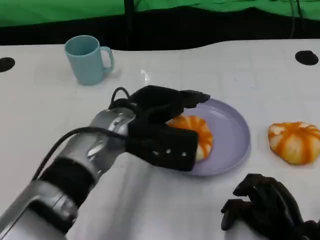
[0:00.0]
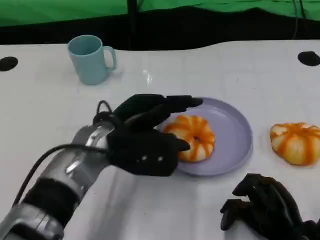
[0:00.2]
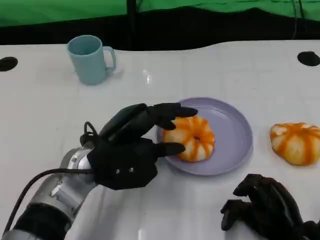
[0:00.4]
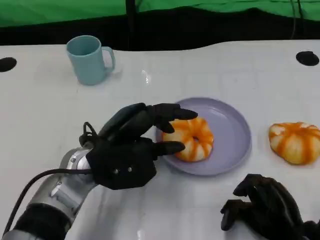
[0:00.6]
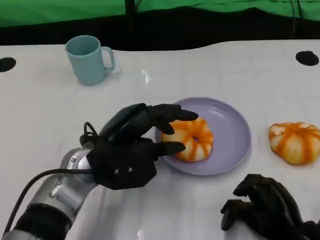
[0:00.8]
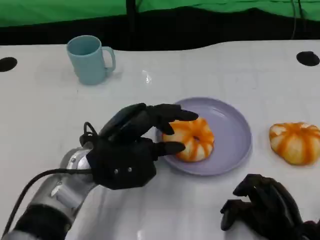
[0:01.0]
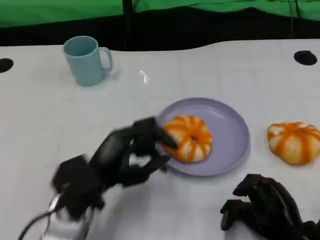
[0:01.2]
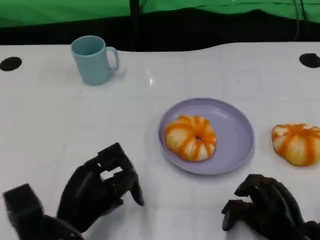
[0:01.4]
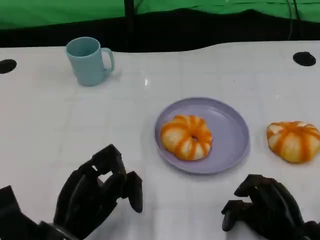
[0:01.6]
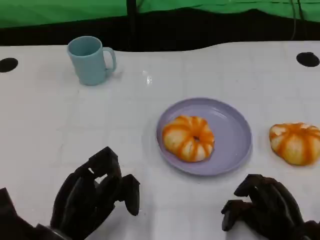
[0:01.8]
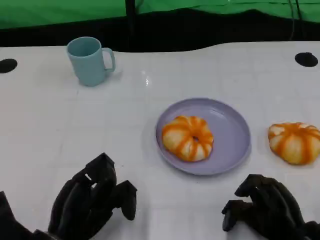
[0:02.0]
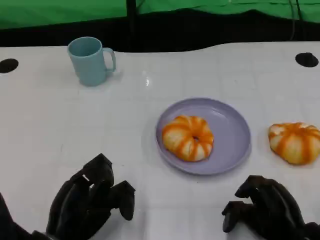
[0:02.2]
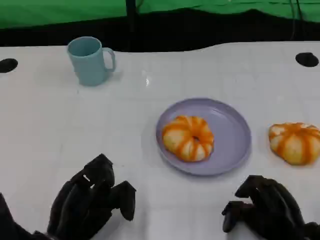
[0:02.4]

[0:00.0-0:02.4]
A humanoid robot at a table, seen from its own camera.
Task of the whole recording: Grasp the bread from the table and place it into the plate.
0:00.0 to 0:01.2: The left hand moves backward, downward and to the left, some 15 cm.
0:01.2 to 0:02.4: The left hand shifts by roughly 5 cm.

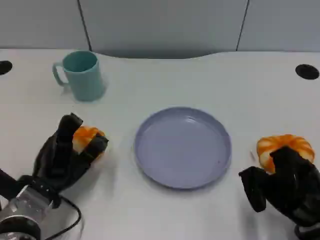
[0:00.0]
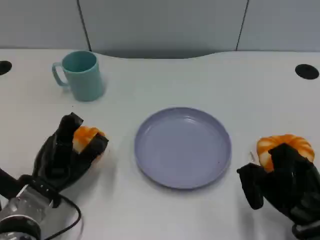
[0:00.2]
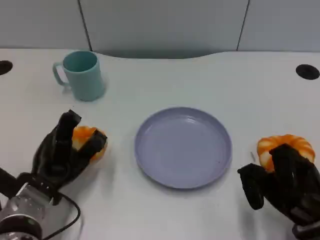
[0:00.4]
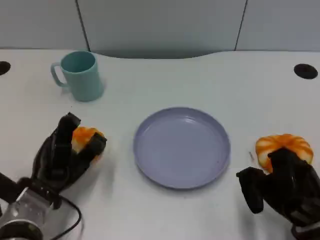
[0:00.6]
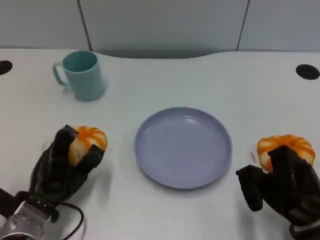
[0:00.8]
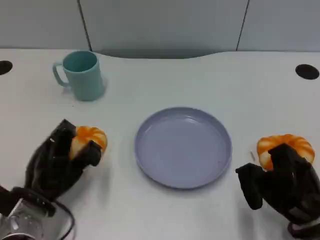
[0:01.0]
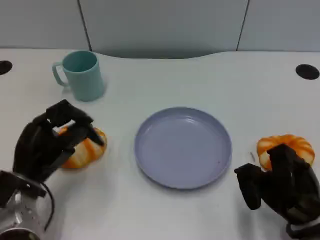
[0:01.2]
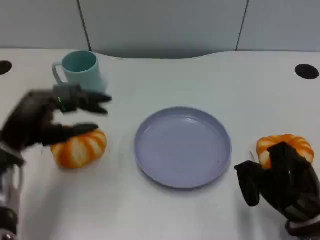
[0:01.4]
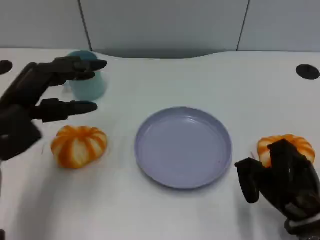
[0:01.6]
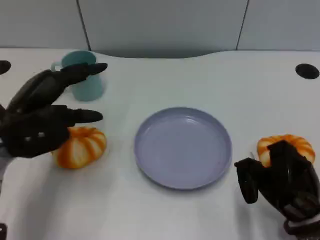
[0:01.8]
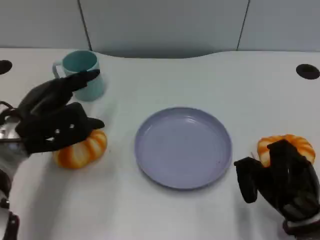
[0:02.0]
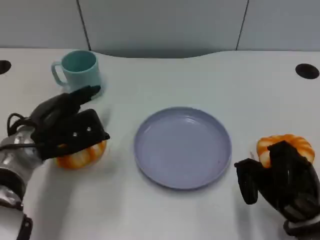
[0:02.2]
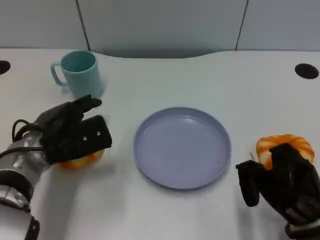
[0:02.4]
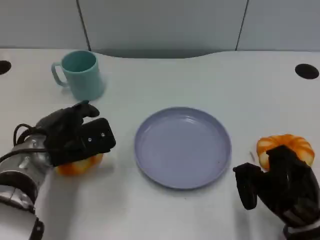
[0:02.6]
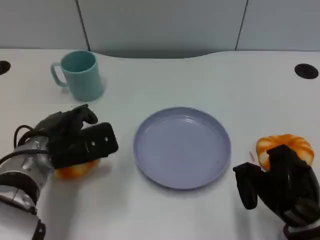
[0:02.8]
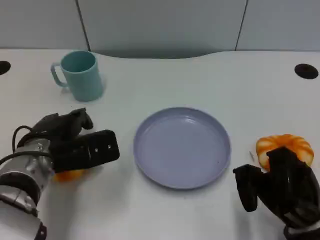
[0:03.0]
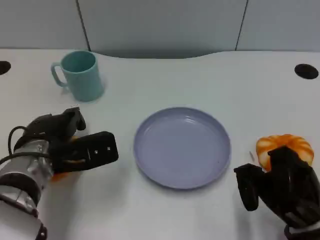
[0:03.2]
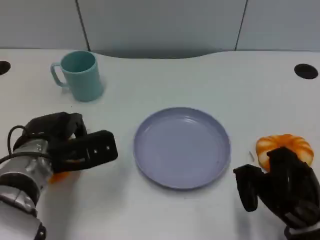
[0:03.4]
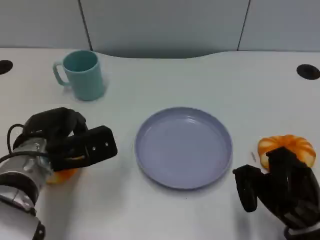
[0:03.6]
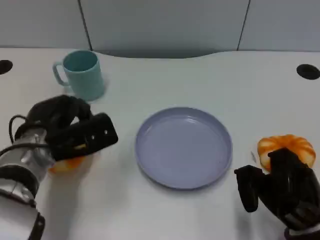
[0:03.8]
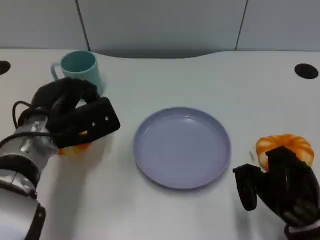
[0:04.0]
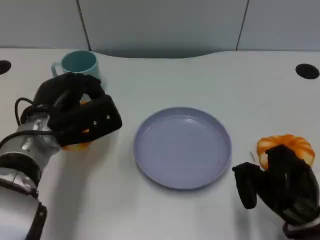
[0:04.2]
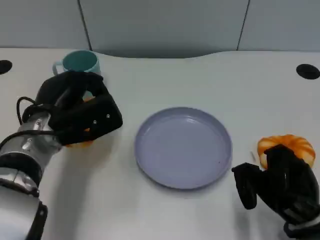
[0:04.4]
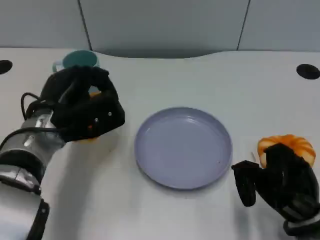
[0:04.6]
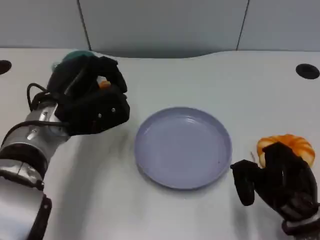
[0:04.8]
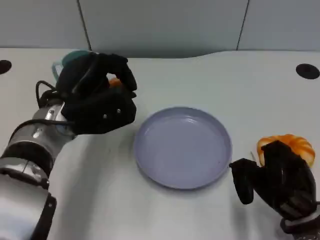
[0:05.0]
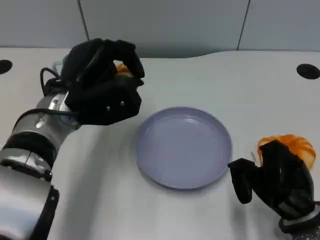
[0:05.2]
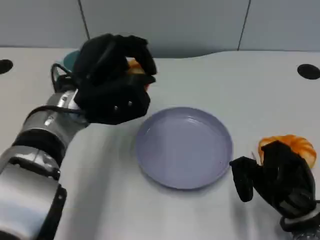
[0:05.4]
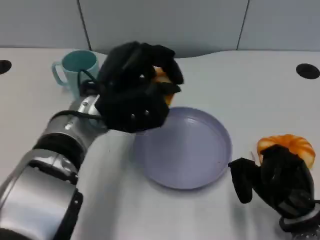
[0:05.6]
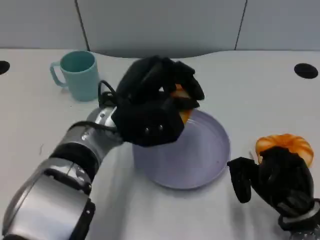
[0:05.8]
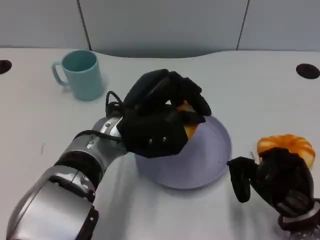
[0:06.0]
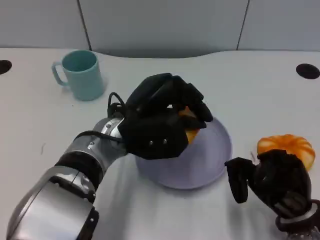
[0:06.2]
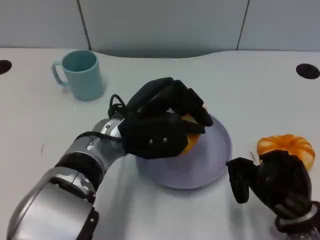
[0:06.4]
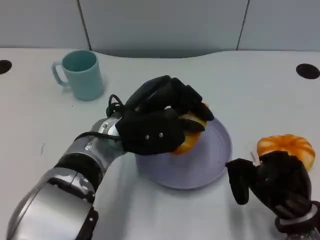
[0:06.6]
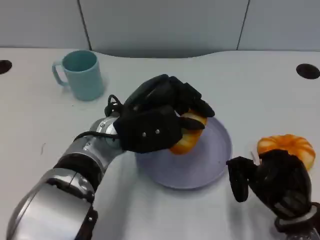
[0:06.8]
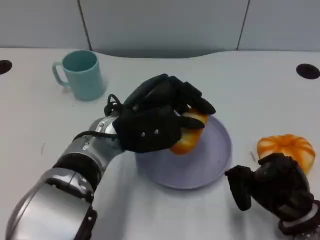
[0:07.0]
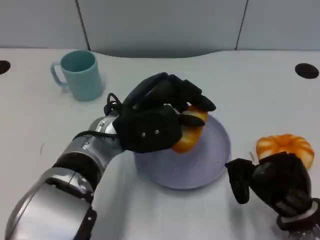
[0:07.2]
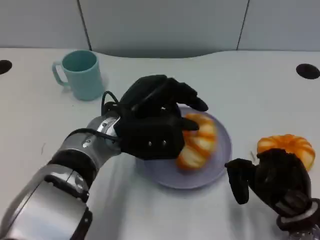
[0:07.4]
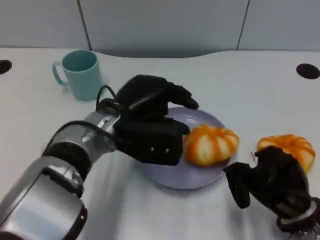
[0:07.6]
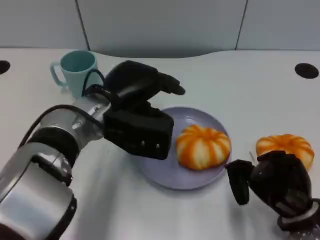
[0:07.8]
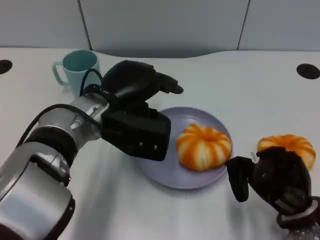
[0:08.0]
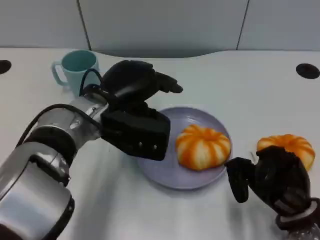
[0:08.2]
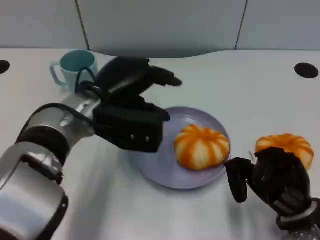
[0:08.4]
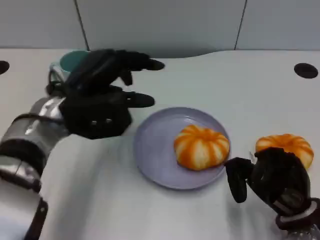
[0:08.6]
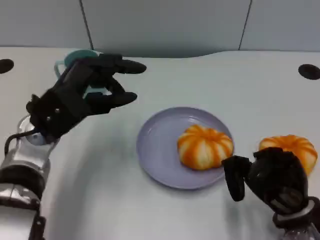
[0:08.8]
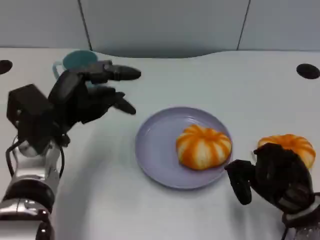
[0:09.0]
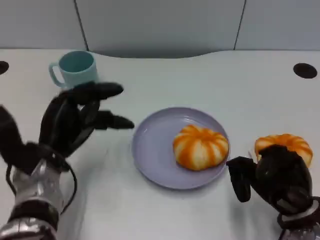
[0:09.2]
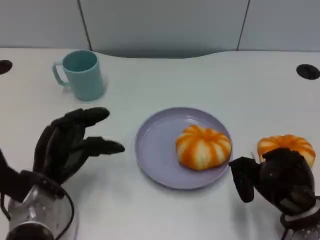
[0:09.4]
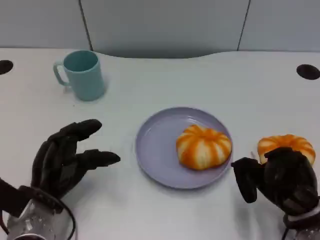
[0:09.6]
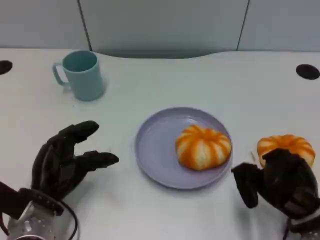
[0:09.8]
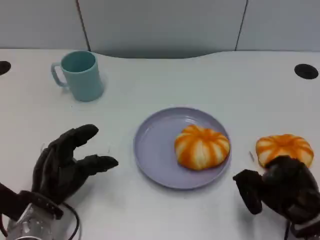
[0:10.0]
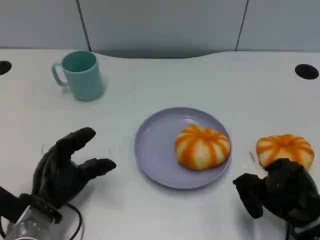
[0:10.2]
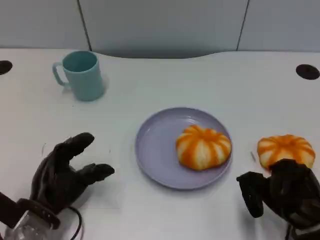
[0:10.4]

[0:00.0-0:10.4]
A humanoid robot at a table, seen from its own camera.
Task of the whole recording: Grasp the bread from the table and place it into the plate.
0:00.0 to 0:01.4: The left hand is displaced upward by approximately 10 cm.
0:01.4 to 0:03.0: The left hand heads to the right, covering roughly 5 cm.
0:04.4 to 0:06.0: The left hand travels to the right by about 10 cm.
0:06.0 to 0:07.4: The hands move only a little.
0:07.4 to 0:09.0: The left hand heads to the left, covering about 10 cm.
0:09.0 to 0:10.4: The left hand travels downward and backward by roughly 10 cm.
